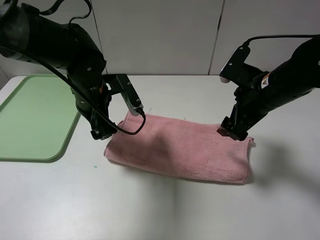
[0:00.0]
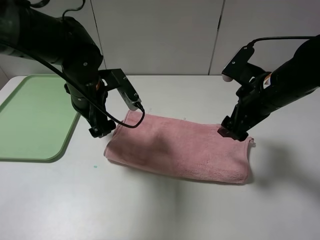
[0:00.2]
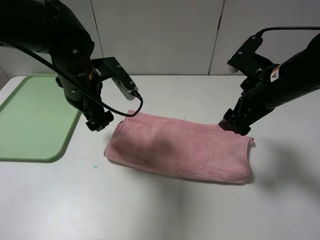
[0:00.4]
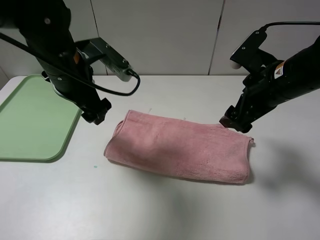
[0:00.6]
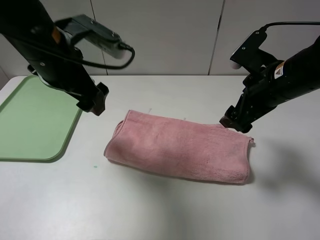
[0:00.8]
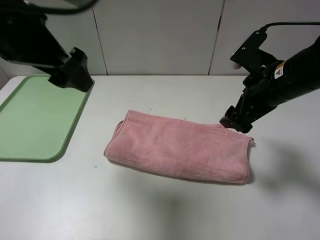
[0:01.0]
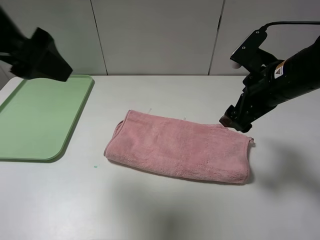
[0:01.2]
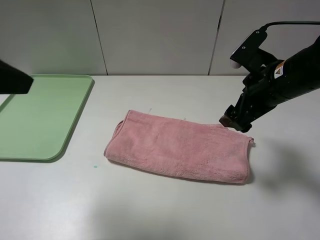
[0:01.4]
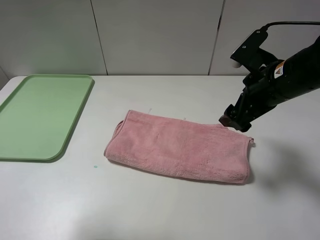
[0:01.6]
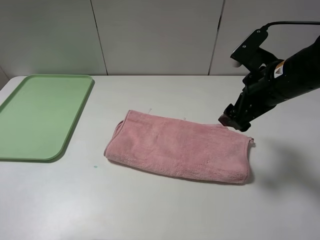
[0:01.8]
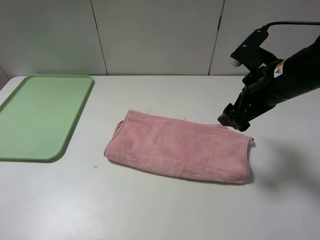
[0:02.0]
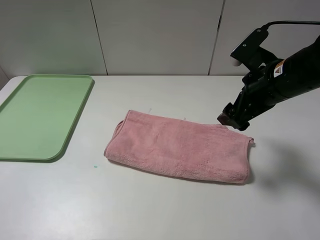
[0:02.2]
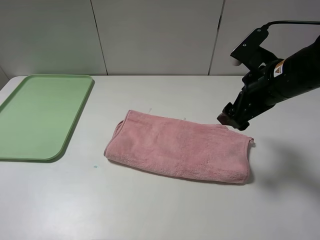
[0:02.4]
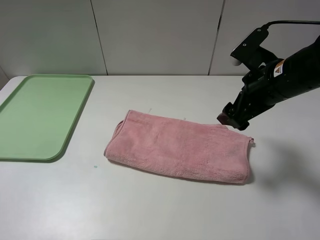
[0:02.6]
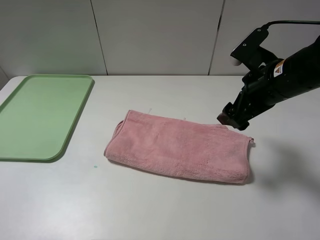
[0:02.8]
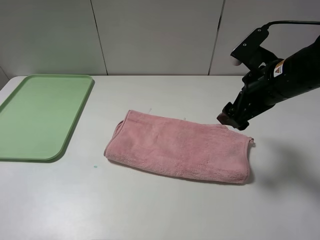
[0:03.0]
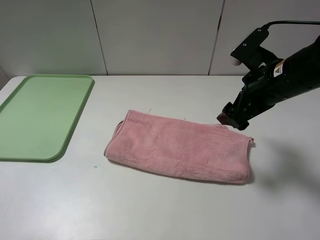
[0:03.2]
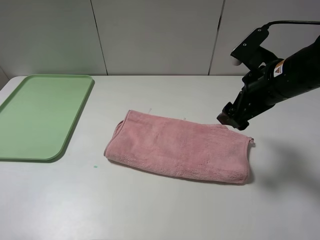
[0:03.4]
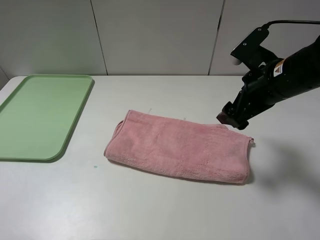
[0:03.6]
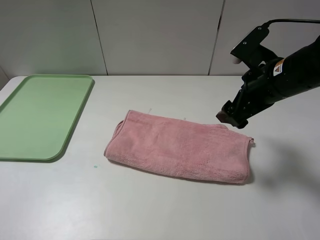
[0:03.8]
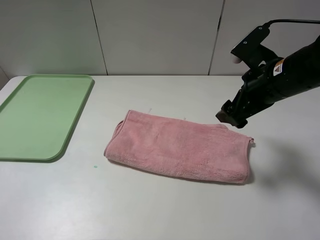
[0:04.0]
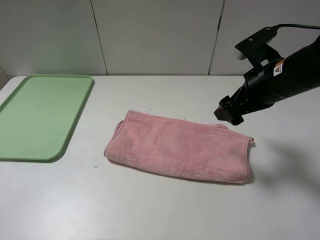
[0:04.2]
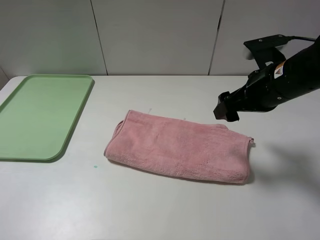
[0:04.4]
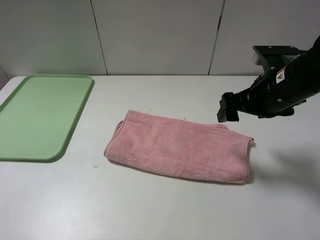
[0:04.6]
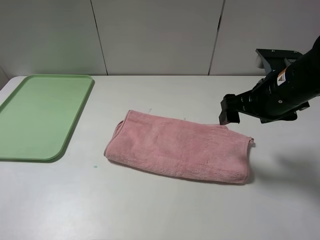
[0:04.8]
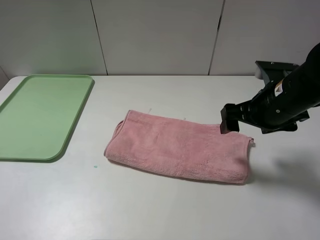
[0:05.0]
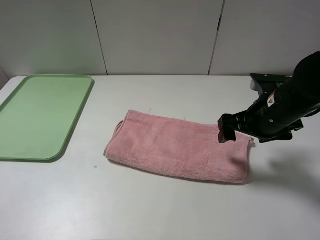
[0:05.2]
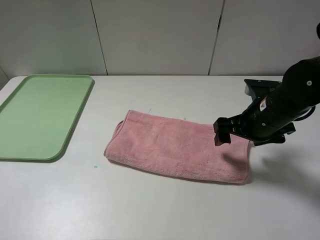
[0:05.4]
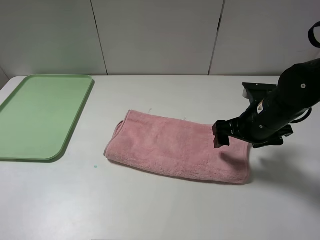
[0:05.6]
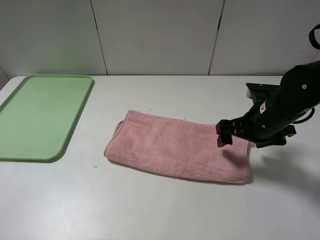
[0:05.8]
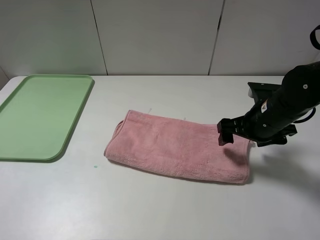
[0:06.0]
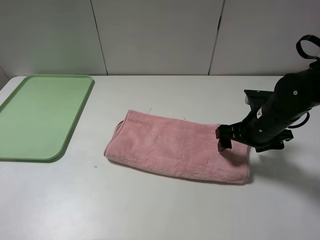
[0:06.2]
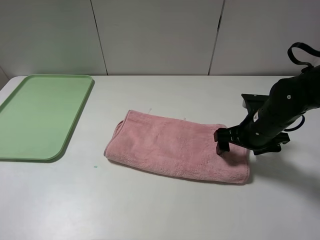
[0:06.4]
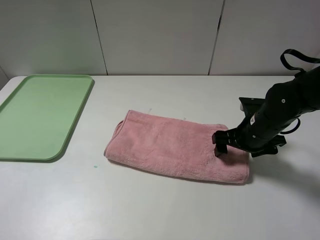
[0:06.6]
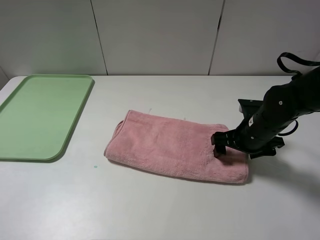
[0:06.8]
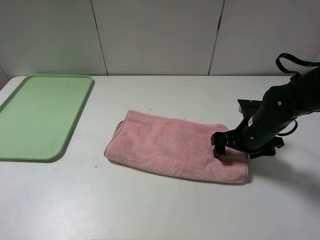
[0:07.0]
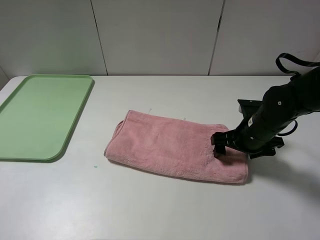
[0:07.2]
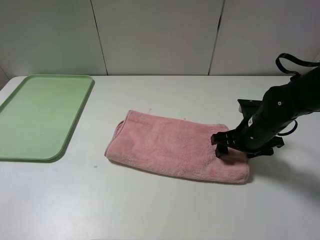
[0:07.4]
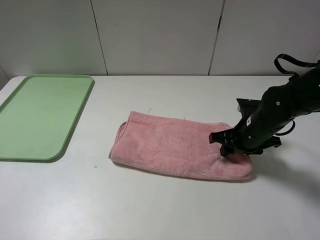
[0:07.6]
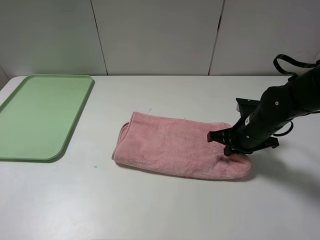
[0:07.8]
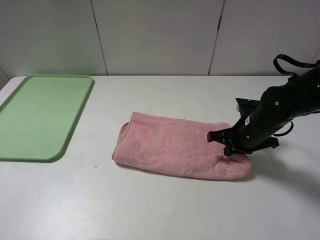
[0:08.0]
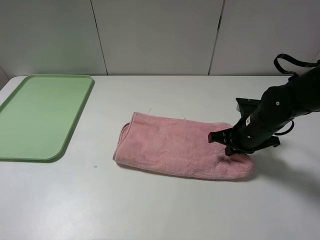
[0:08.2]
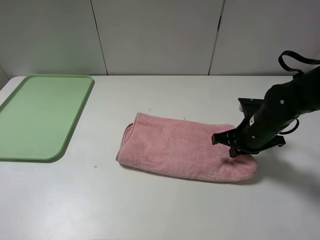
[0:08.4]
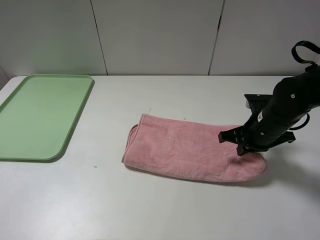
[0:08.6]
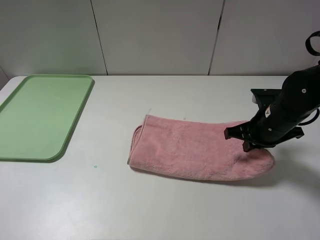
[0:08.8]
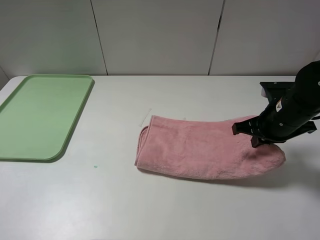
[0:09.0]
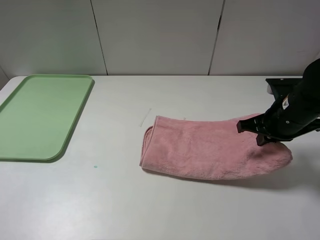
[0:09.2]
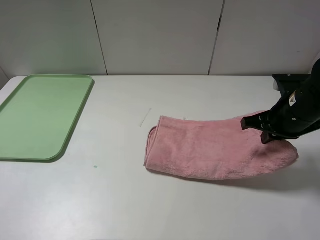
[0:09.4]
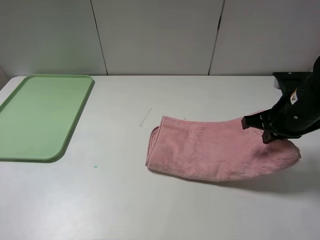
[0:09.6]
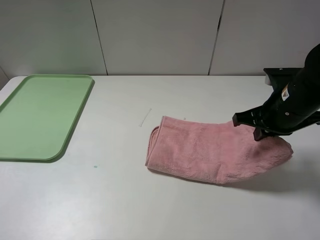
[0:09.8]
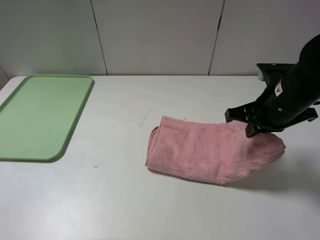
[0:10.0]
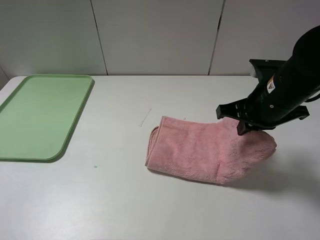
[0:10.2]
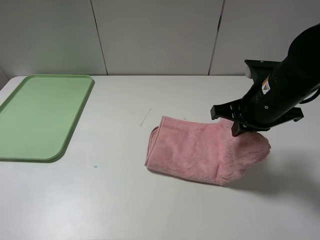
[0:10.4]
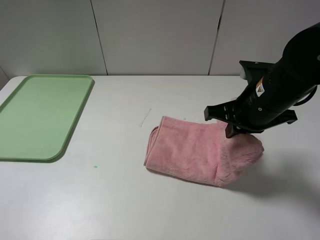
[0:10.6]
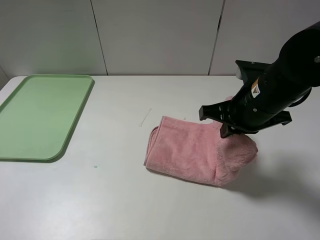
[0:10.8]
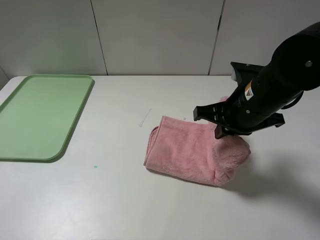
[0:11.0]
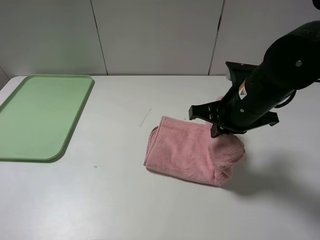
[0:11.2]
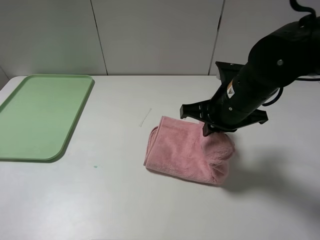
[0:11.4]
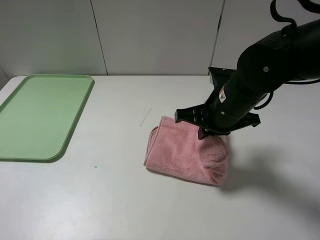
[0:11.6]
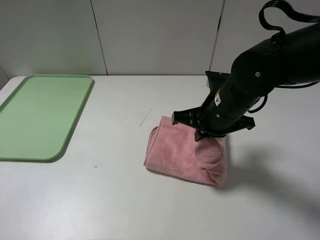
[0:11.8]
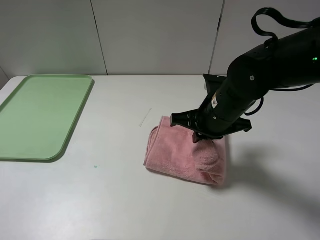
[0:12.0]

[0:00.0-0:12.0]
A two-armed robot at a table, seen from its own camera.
0:00.0 to 0:01.6: The left gripper moves backward, upward and to the left, roughly 30 cm.
0:01.6 to 0:03.0: The left gripper shifts roughly 10 cm downward and backward.
0:04.4 to 0:06.0: The right gripper is displaced downward by approximately 10 cm.
0:06.0 to 0:07.6: The right gripper moves about 5 cm, and closes its fingers.
0:07.6 to 0:09.0: The right gripper travels upward by some 5 cm, and closes up.
0:09.0 to 0:10.4: The right gripper heads to the left and upward, covering some 10 cm.
0:10.4 to 0:12.0: The right gripper goes approximately 5 cm to the left.

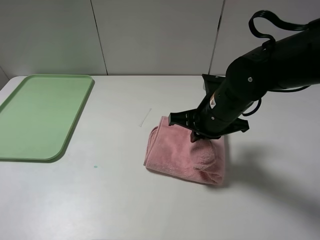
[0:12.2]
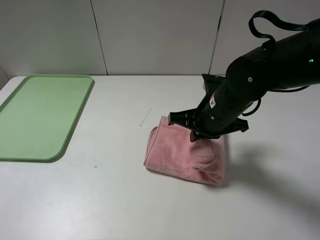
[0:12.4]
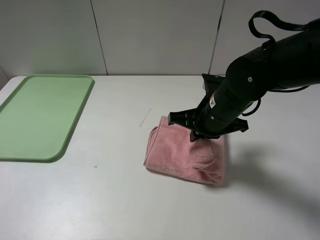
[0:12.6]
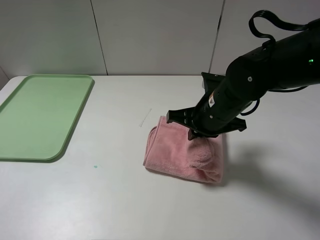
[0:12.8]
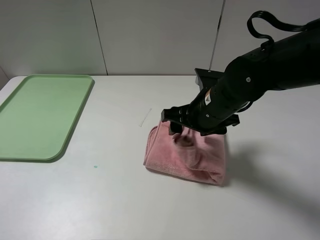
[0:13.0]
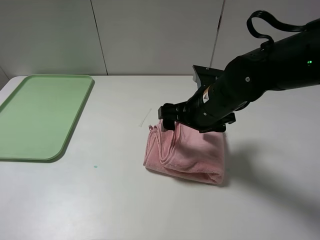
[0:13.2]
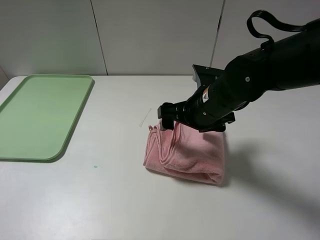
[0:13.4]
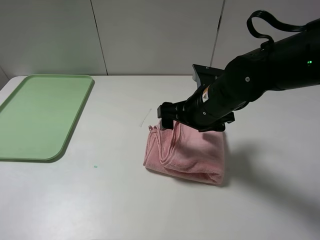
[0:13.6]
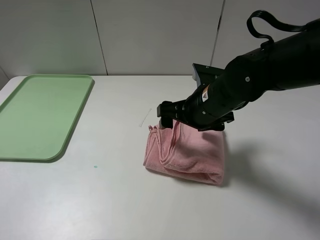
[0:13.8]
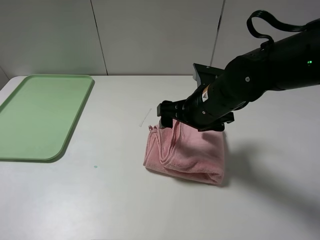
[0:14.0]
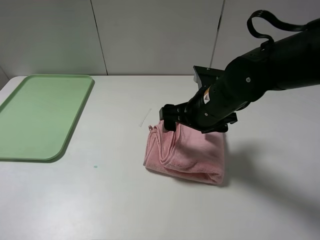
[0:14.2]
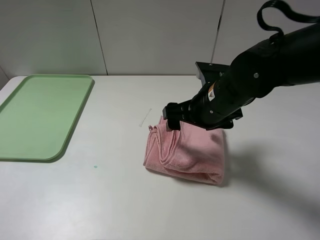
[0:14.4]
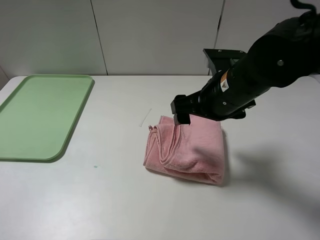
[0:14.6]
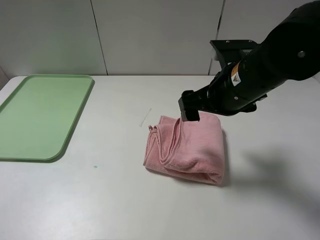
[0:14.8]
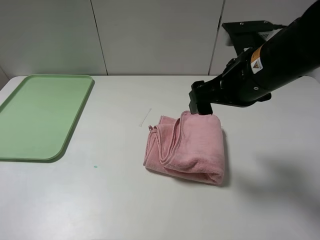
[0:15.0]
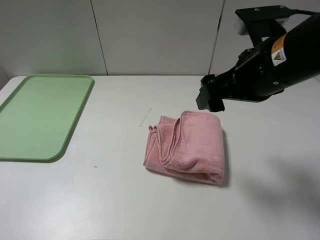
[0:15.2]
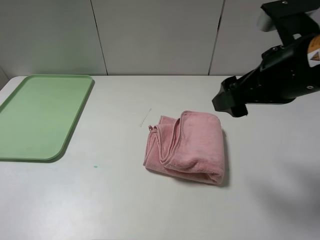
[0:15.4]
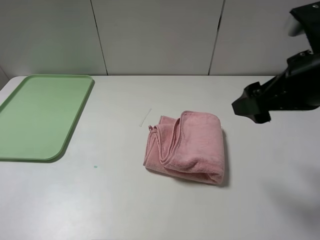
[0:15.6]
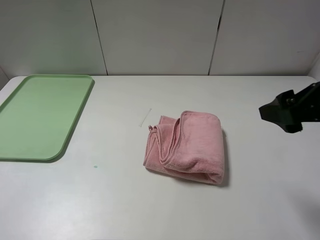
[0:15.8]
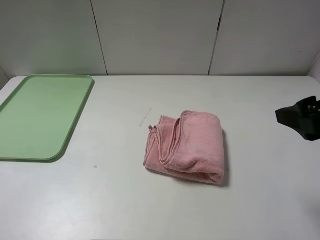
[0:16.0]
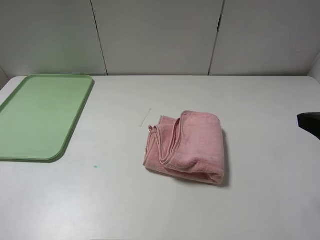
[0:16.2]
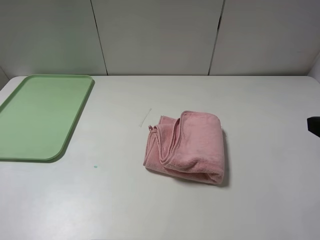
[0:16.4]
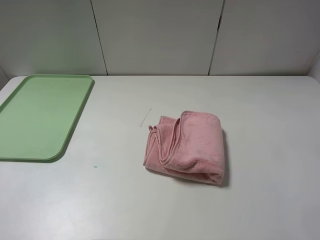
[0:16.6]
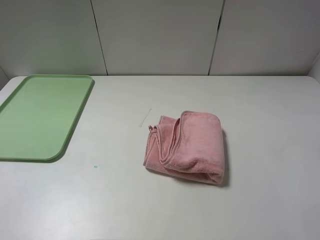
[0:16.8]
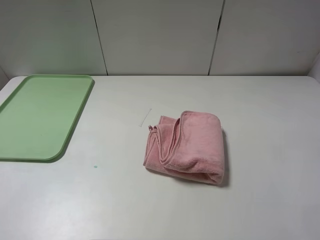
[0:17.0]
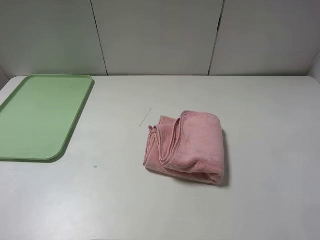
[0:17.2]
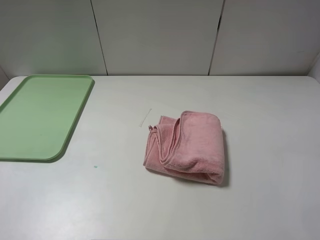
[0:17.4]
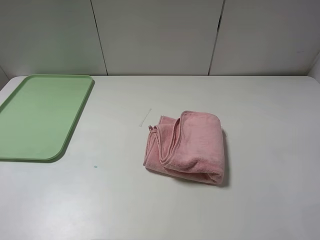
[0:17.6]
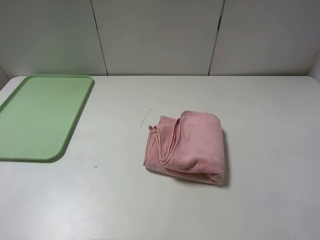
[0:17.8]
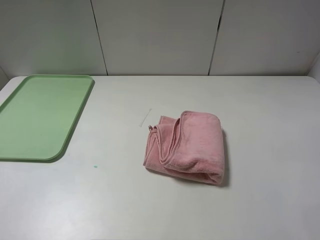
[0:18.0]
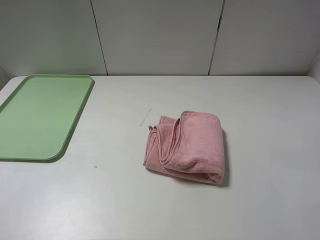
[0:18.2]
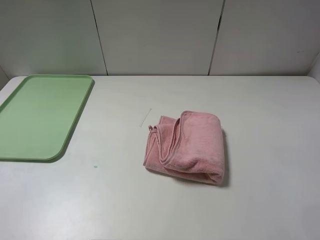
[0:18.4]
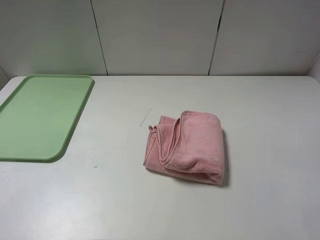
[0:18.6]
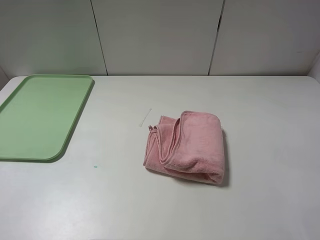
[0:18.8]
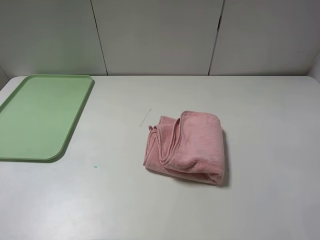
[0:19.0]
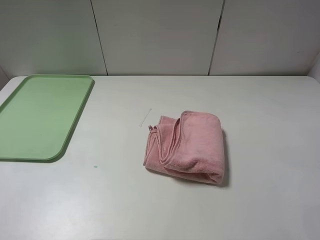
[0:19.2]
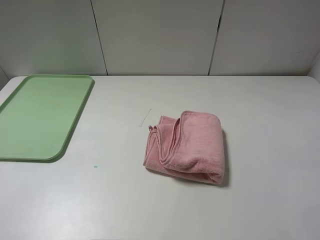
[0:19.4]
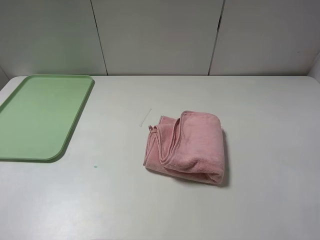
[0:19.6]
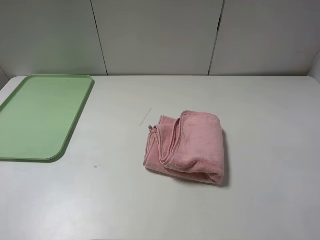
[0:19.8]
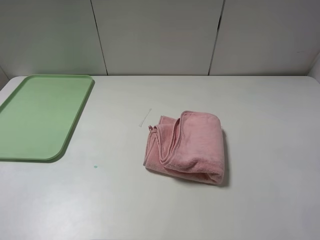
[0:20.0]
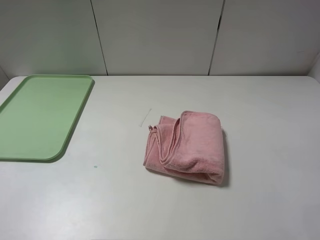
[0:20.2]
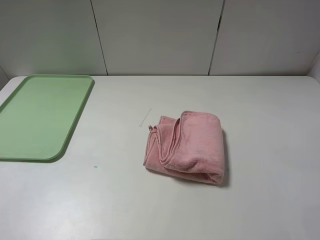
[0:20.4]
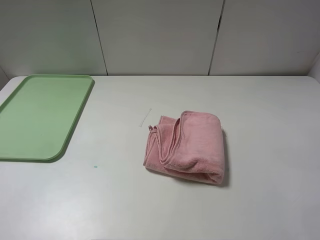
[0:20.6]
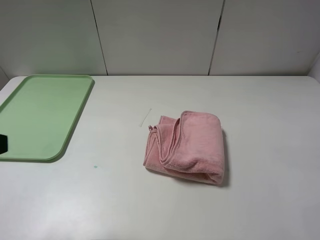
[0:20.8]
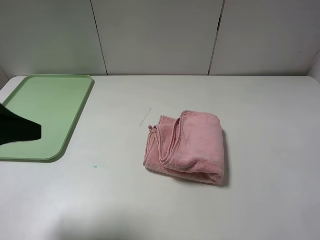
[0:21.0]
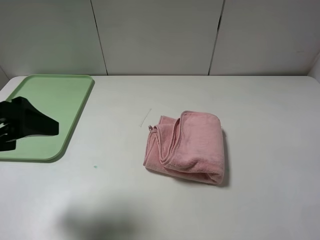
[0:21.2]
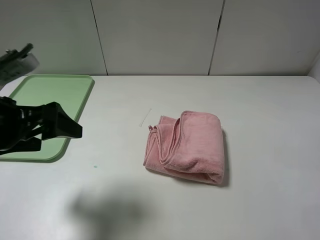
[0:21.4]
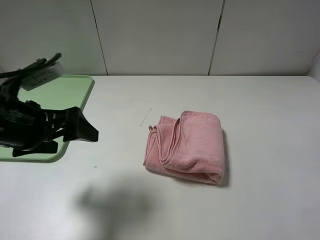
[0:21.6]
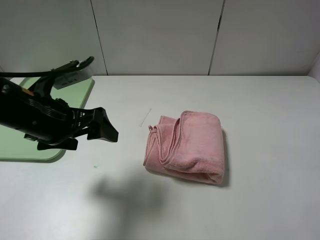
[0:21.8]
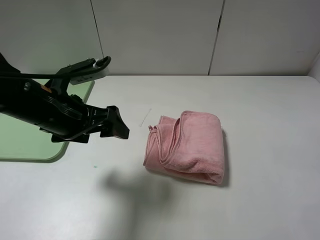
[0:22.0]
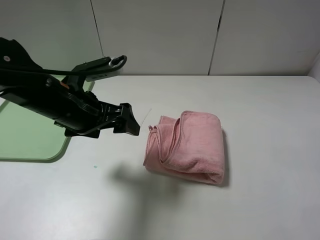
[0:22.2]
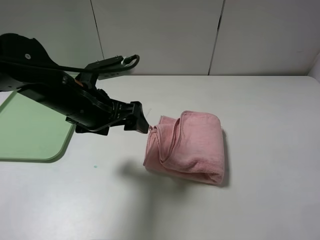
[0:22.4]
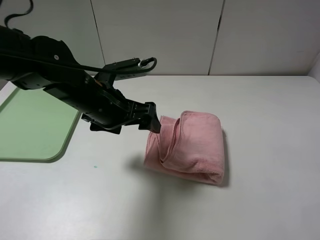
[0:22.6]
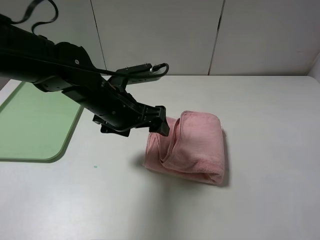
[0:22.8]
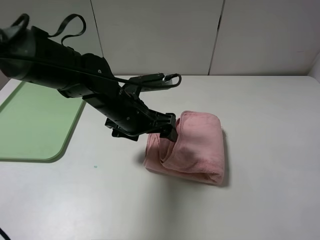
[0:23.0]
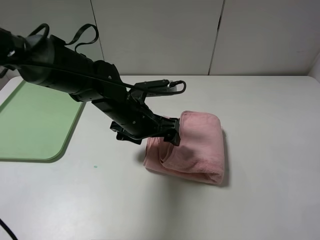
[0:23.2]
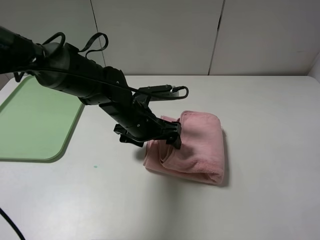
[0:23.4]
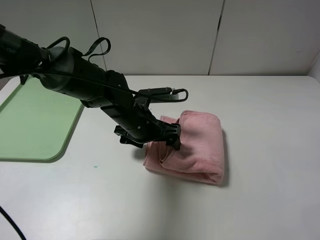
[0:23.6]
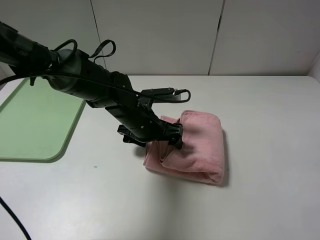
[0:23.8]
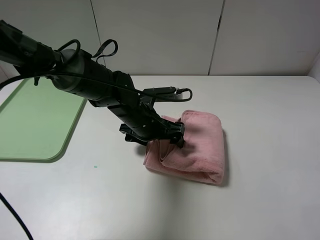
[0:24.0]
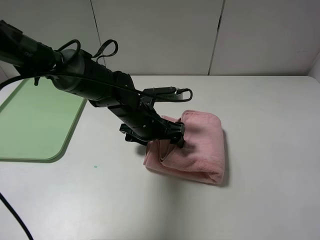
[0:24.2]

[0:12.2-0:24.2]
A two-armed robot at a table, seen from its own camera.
0:12.2 to 0:13.8: The right gripper opens.
0:13.8 to 0:15.2: The right gripper moves upward, to the right and backward, roughly 15 cm.
0:15.2 to 0:16.6: The right gripper goes roughly 20 cm to the right and backward.
0:18.2 to 0:19.8: Both grippers stay put.
0:19.8 to 0:21.2: The left gripper is displaced forward and to the right by approximately 15 cm.
0:21.2 to 0:22.6: The left gripper heads to the right, forward and downward, covering some 20 cm.
0:22.6 to 0:24.2: The left gripper is displaced downward and to the right by some 10 cm.
